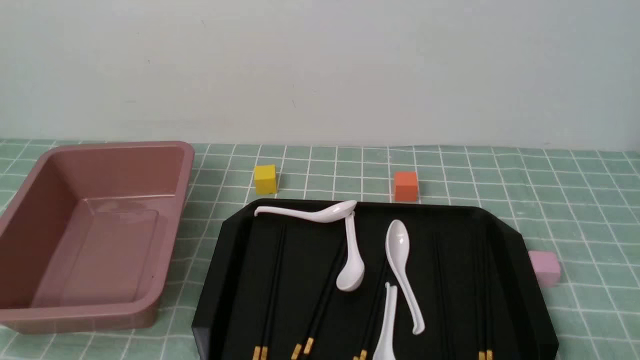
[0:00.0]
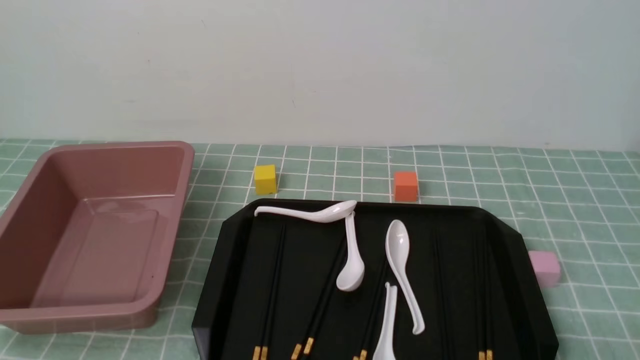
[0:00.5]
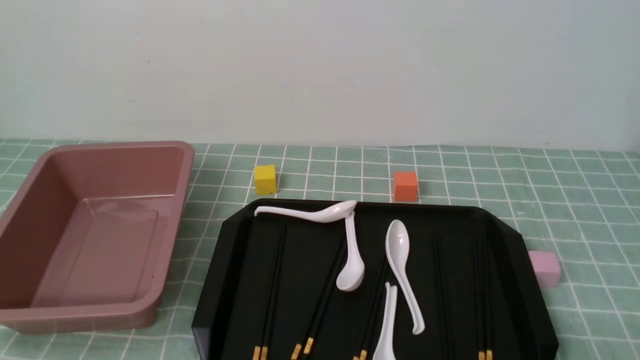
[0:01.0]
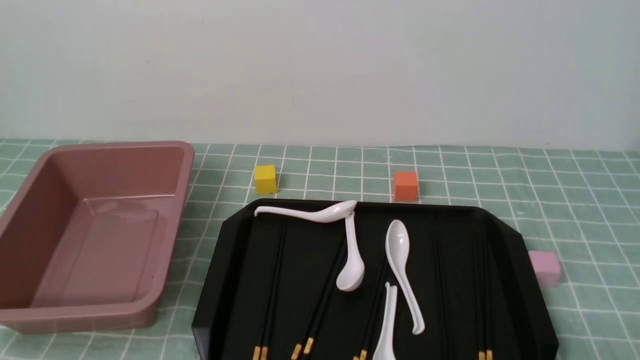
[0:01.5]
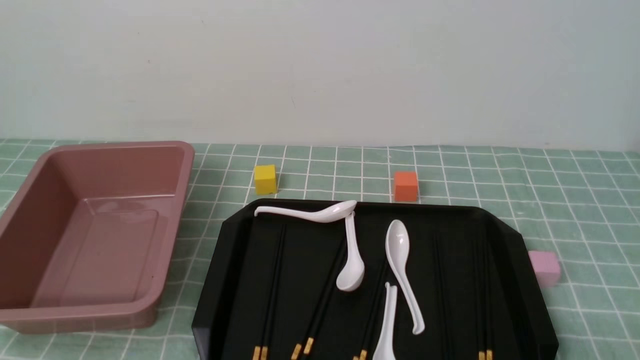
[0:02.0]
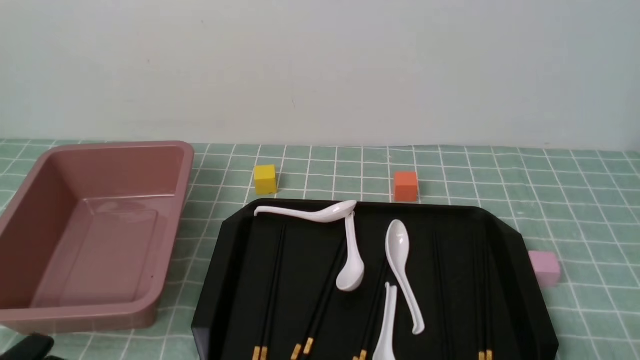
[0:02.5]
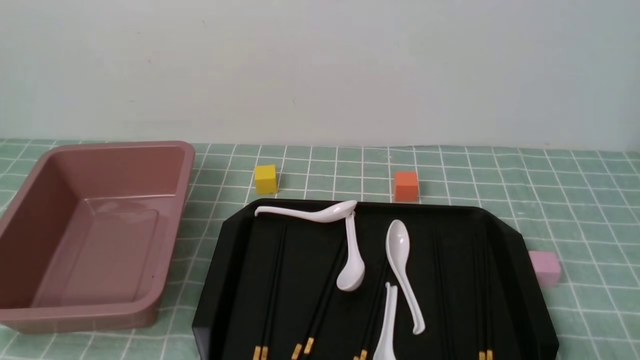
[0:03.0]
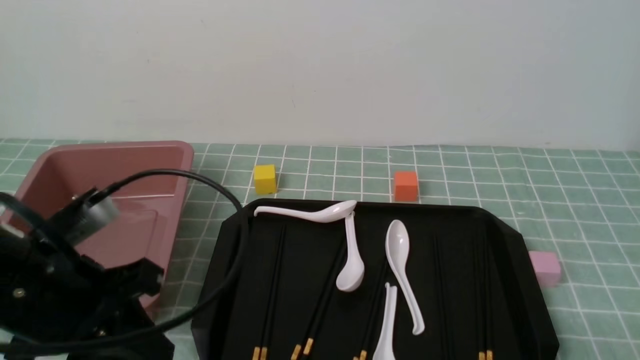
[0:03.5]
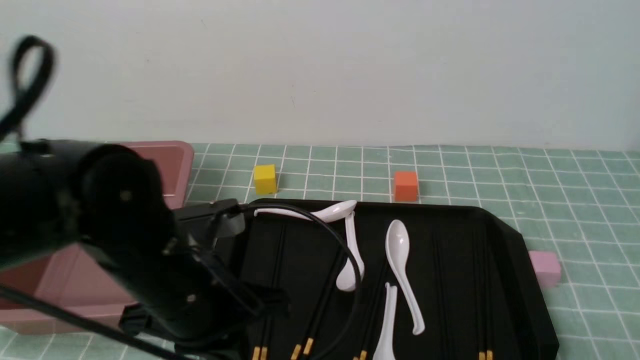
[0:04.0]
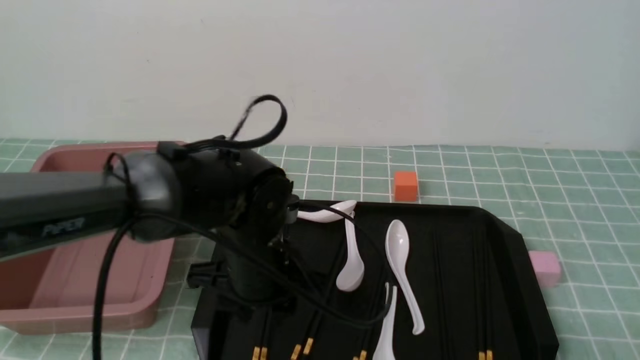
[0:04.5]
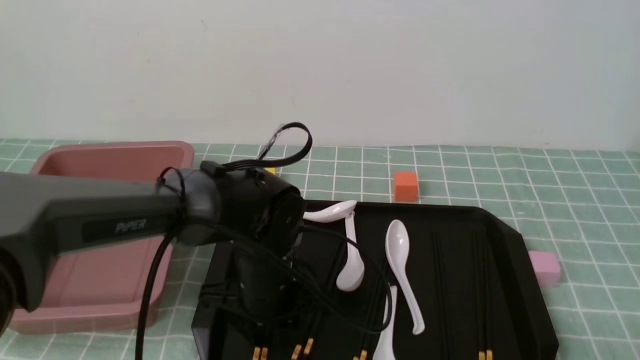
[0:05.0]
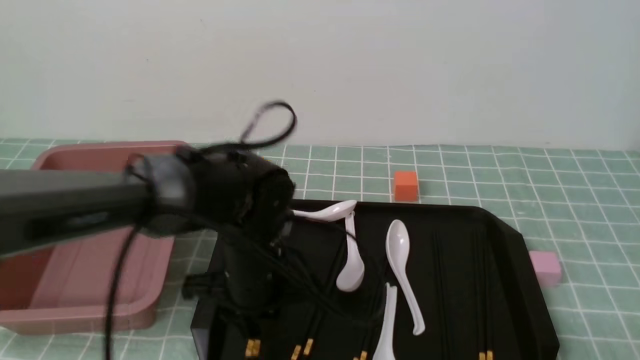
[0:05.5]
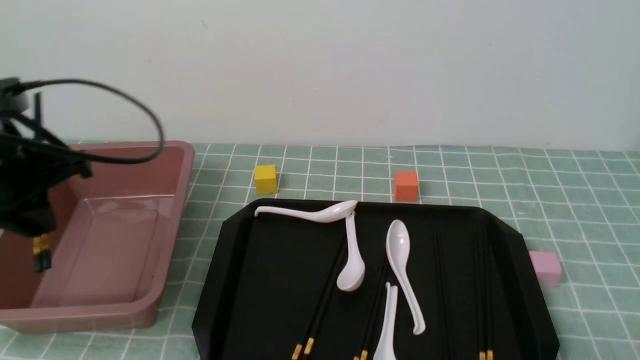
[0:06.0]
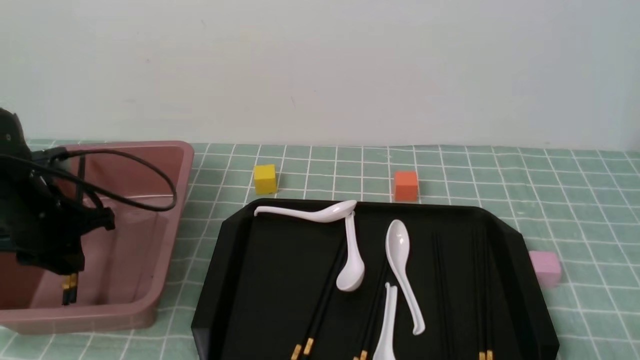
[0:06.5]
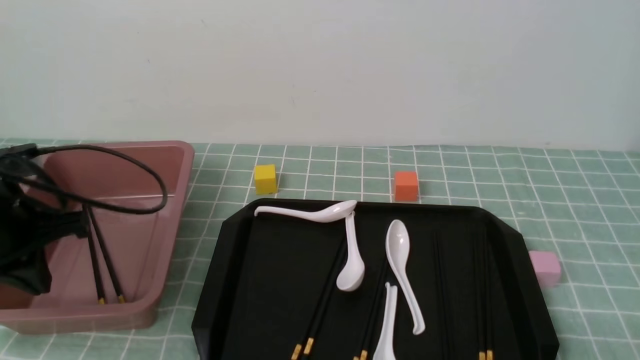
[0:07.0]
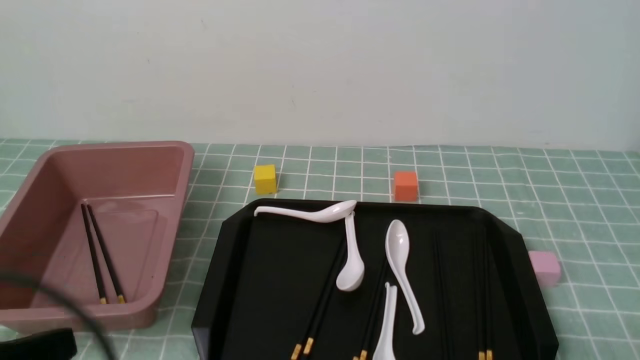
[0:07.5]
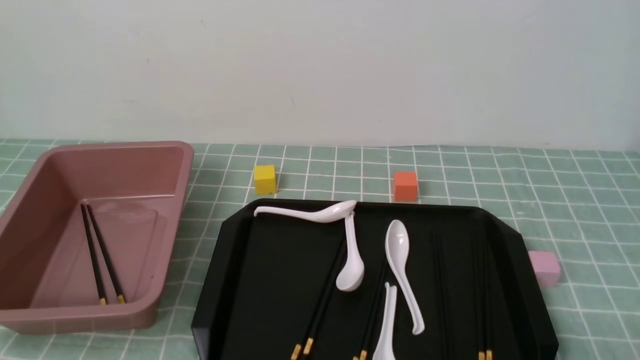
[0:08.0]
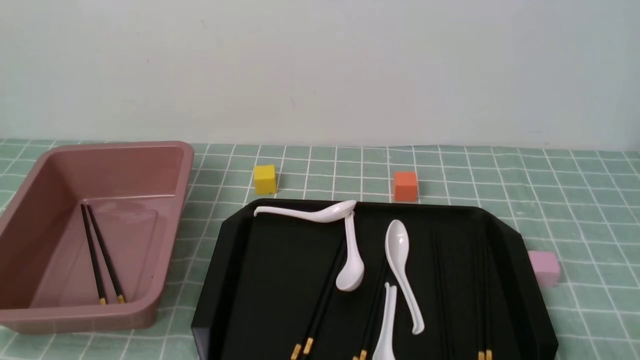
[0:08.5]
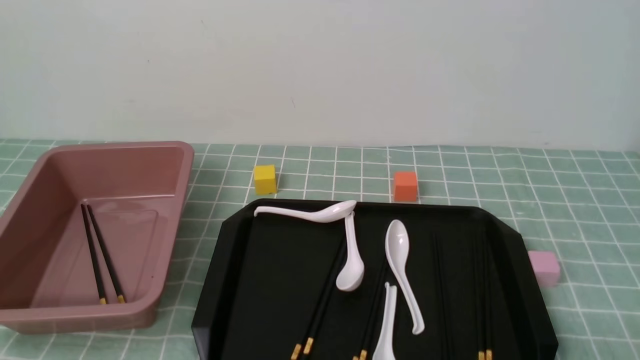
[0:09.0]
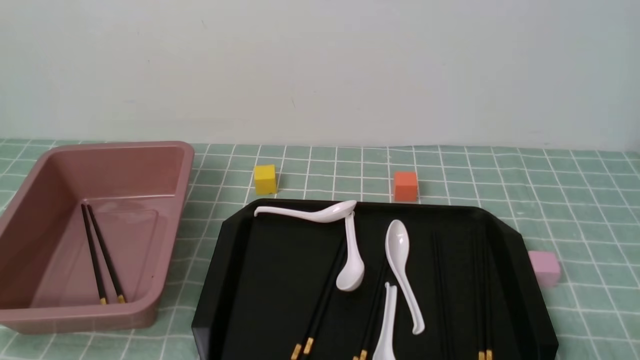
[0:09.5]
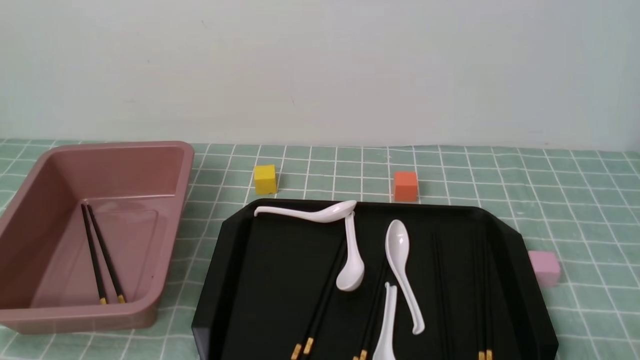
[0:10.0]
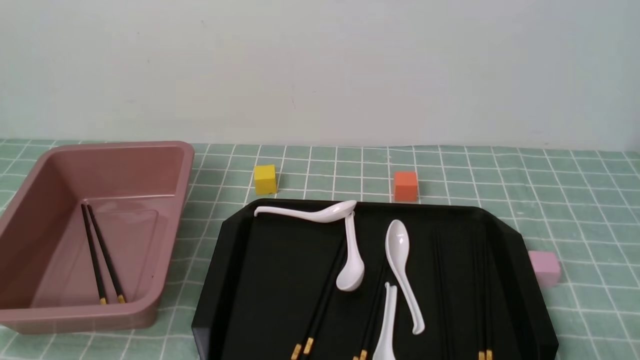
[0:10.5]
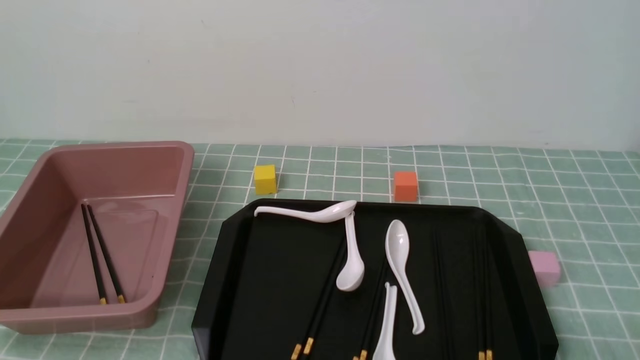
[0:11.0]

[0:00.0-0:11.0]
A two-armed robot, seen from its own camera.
Step, 0:00.0 to 0:05.5: use the left arm to grab a pair of chopsticks.
Step, 0:06.0 to 0:07.0: use the left arm to put the chopsticks into the lunch box.
0:02.0 to 0:03.5: The left gripper is displaced upward, forward and to the right by approximately 20 cm, and closes up.
0:03.5 to 0:05.5: The left gripper travels to the right, forward and downward by some 20 cm, and opens up.
0:05.5 to 0:07.5: The left gripper shifts approximately 30 cm backward, to the left and upward, and closes up.
0:07.5 to 0:09.0: The left gripper heads downward and backward, covering about 10 cm.
